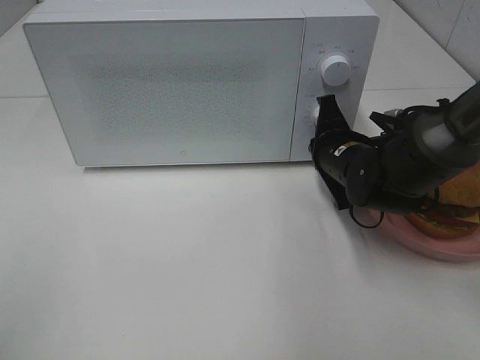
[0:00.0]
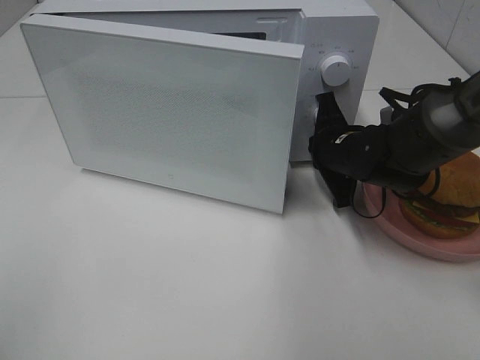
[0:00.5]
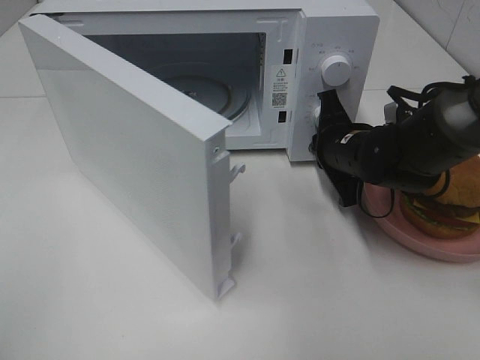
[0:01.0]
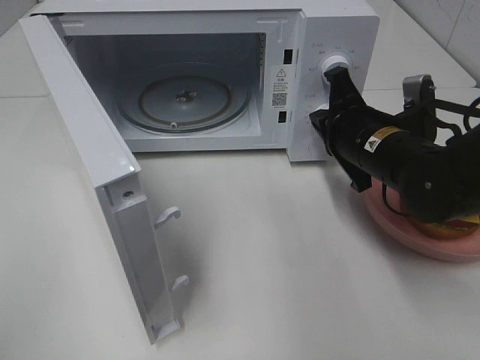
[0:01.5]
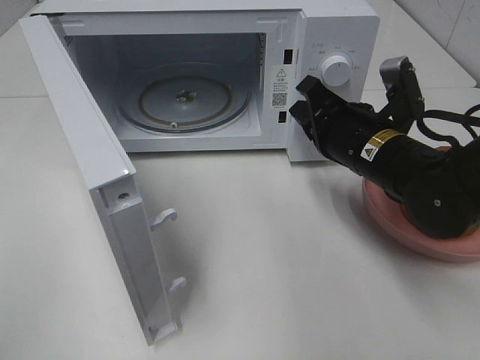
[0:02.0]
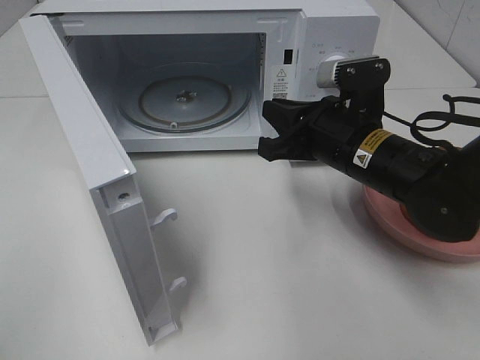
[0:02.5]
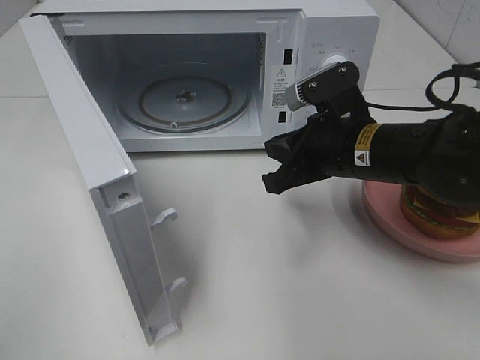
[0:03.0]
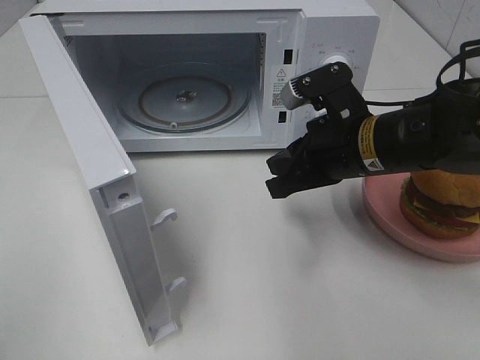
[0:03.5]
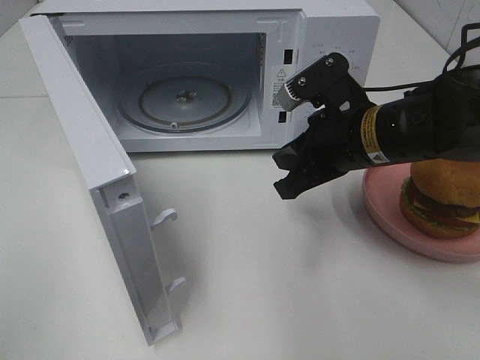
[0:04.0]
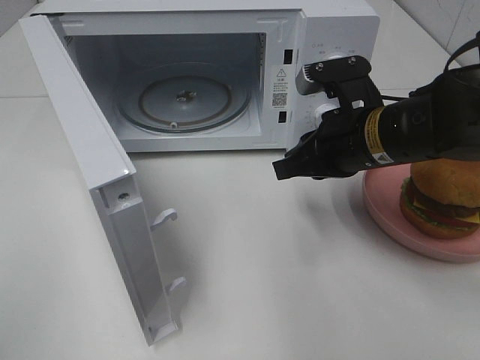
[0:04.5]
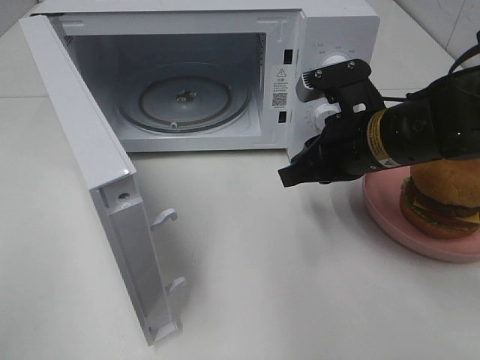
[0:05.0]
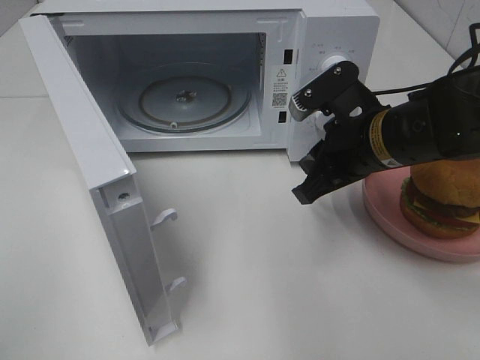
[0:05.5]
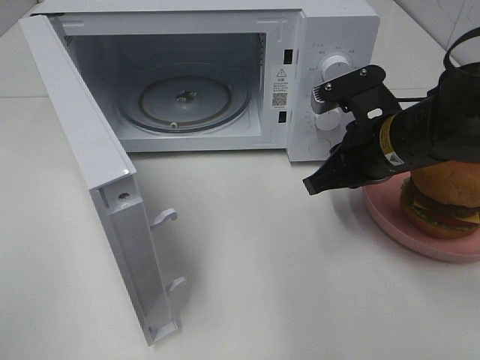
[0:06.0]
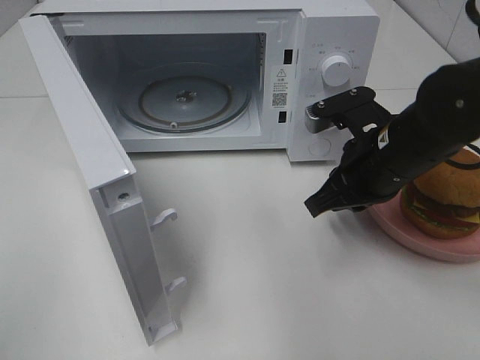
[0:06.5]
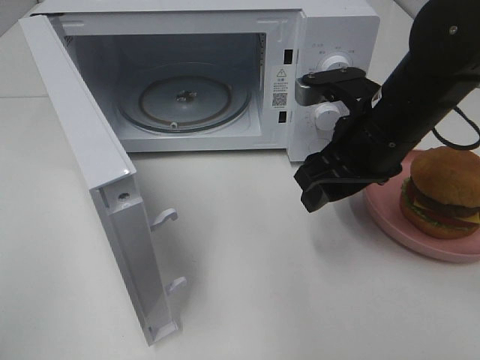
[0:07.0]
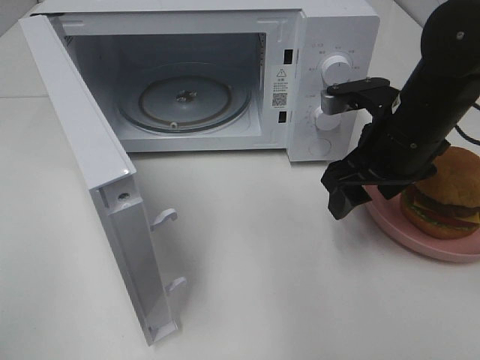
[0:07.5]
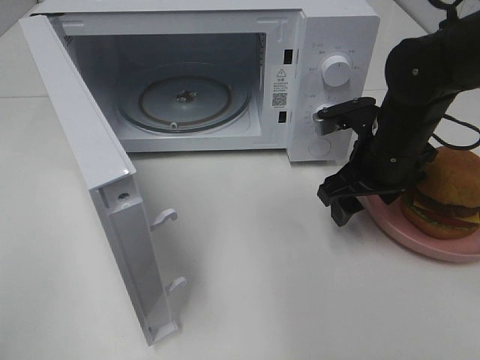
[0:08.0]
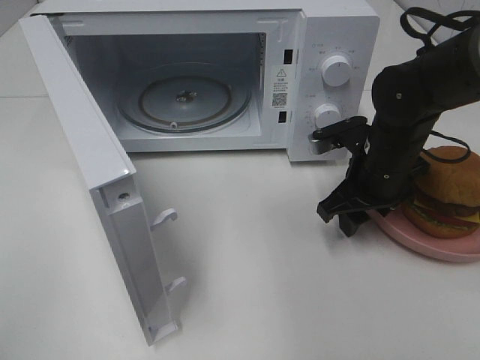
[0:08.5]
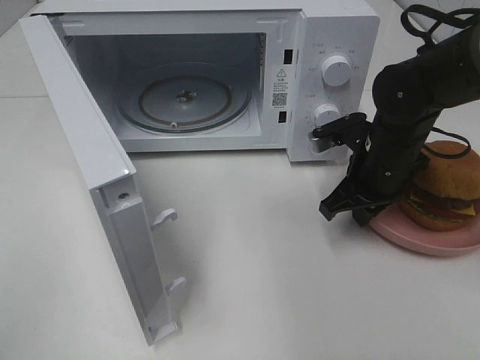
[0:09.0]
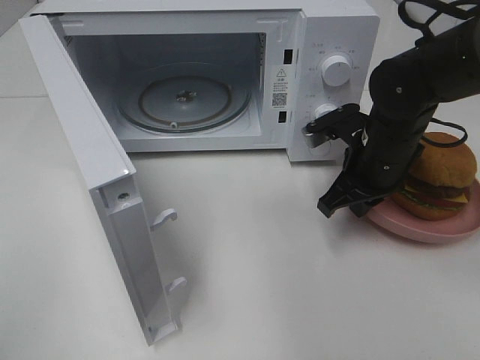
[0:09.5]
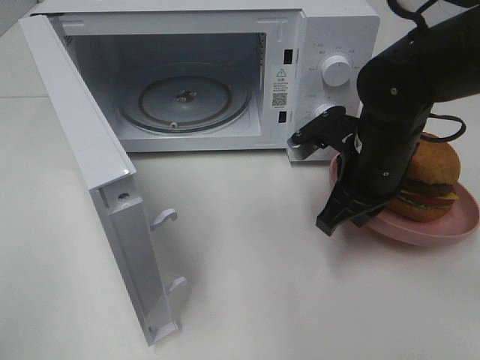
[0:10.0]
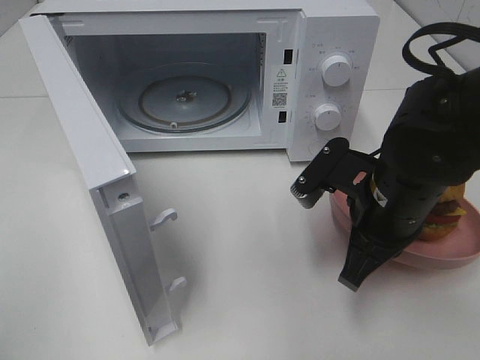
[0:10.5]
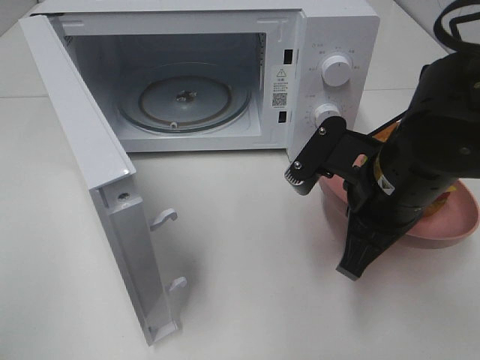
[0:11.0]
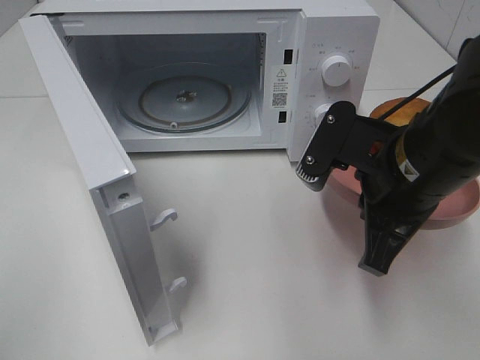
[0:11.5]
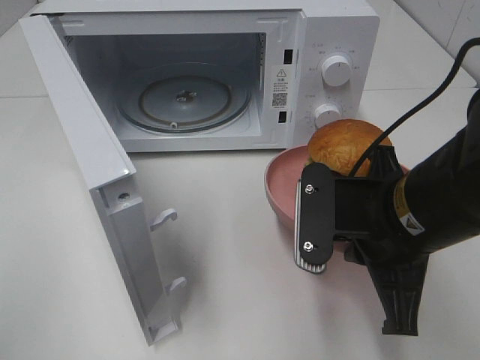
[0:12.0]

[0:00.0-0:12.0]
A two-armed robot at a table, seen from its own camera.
Task of the whole recording: Heat the burger.
Step, 0:01.5 to 0:08.5: Right hand: grab the plate with the hamburger.
0:00.0 to 0:02.0: The right gripper travels upward and backward by roughly 10 cm.
0:06.0 to 0:08.0: The right gripper opens.
0:08.0 to 0:10.0: The right gripper closes its fingers.
0:10.0 to 0:12.0: The right gripper goes approximately 10 cm backward.

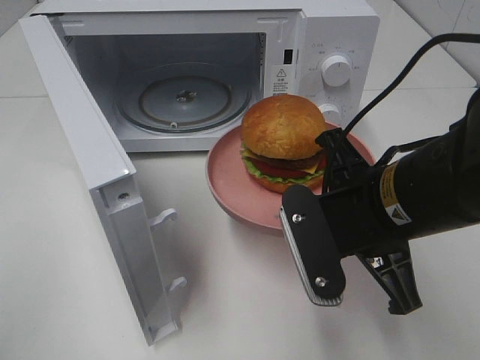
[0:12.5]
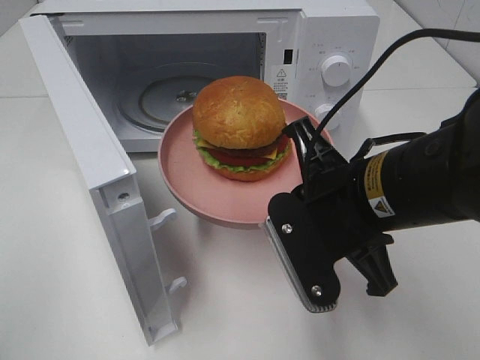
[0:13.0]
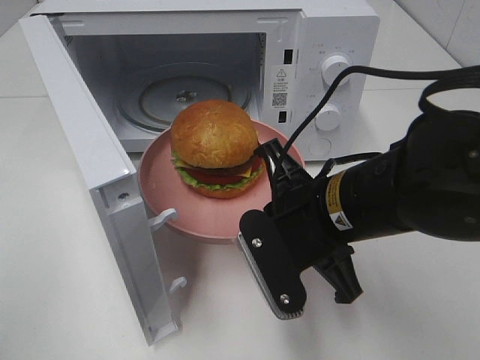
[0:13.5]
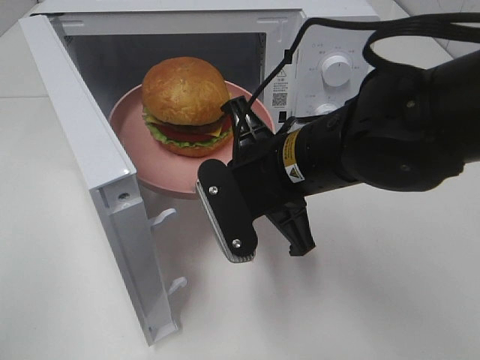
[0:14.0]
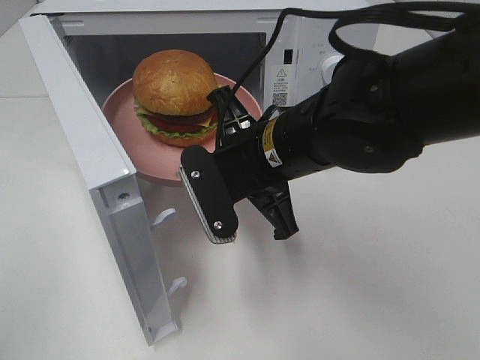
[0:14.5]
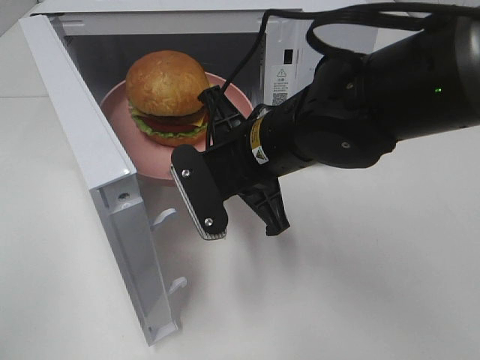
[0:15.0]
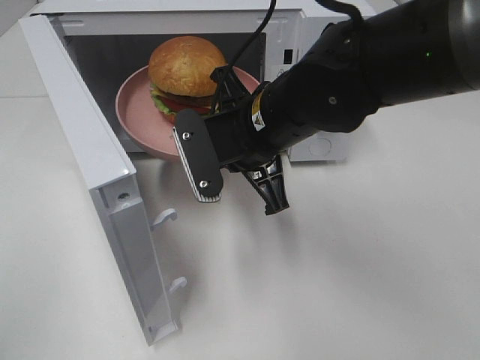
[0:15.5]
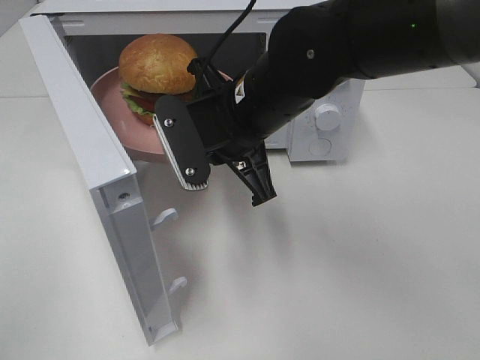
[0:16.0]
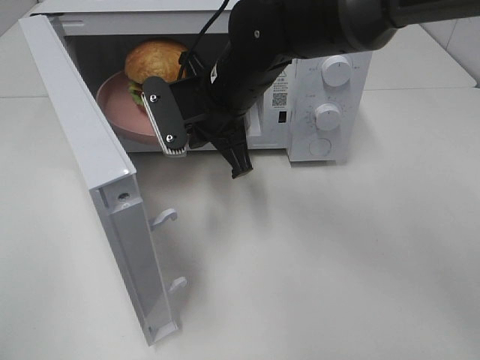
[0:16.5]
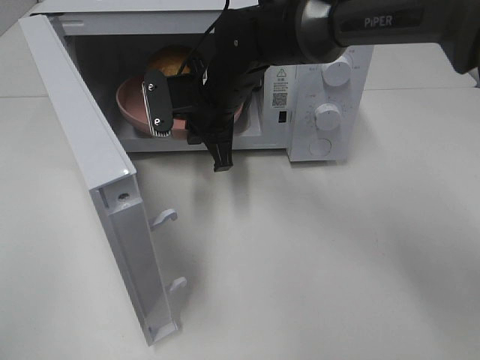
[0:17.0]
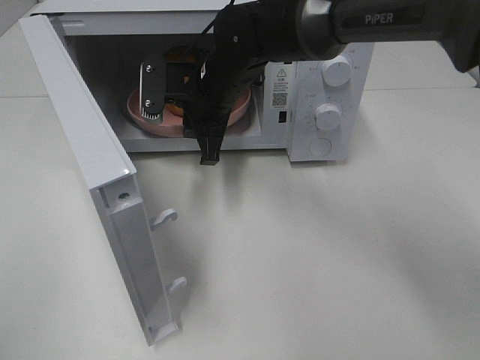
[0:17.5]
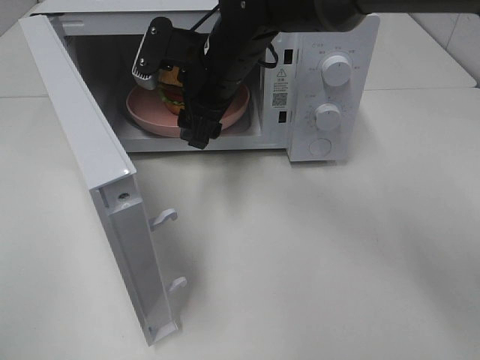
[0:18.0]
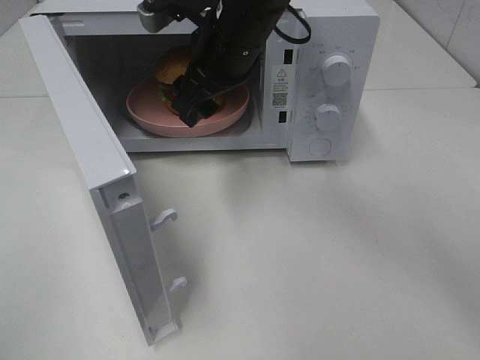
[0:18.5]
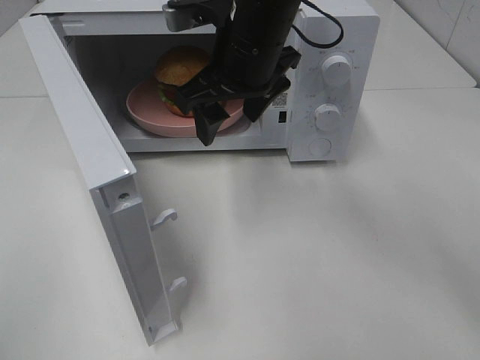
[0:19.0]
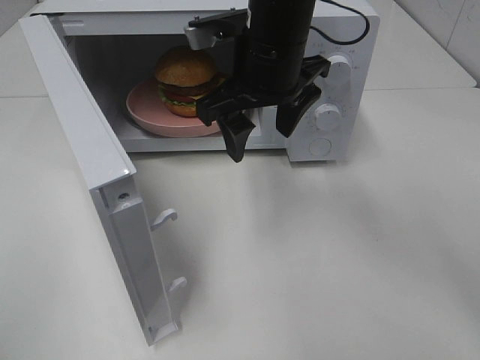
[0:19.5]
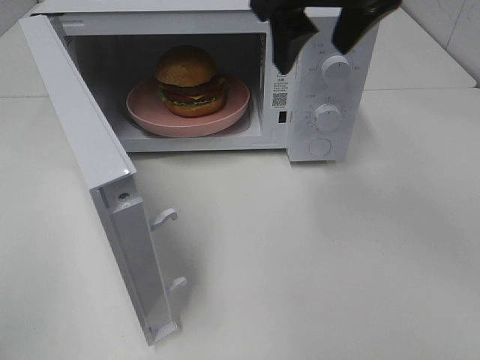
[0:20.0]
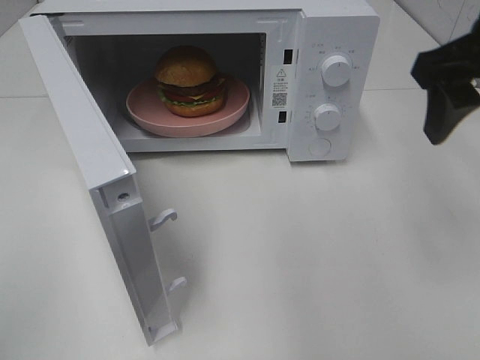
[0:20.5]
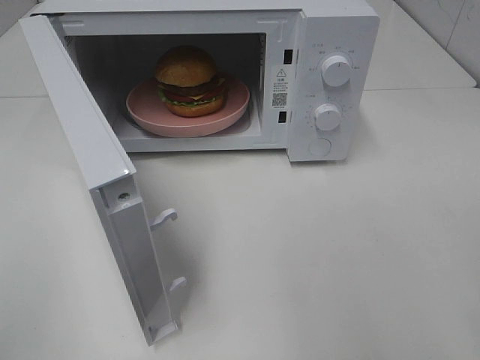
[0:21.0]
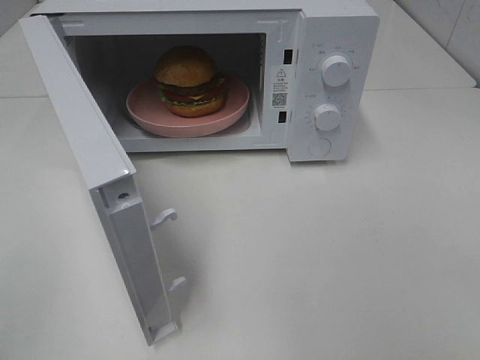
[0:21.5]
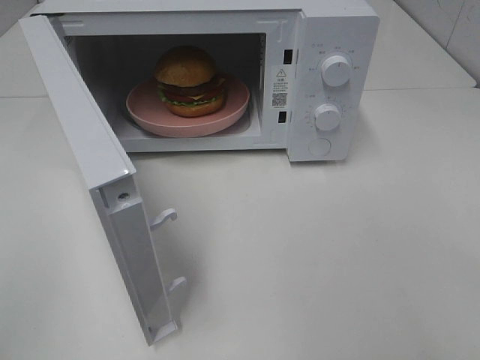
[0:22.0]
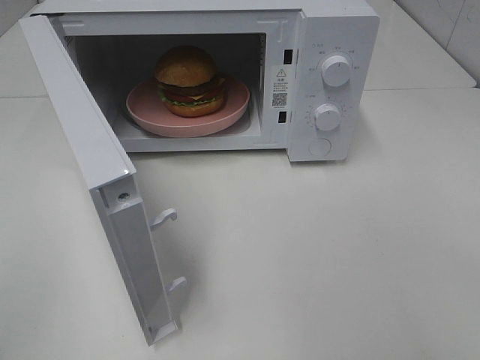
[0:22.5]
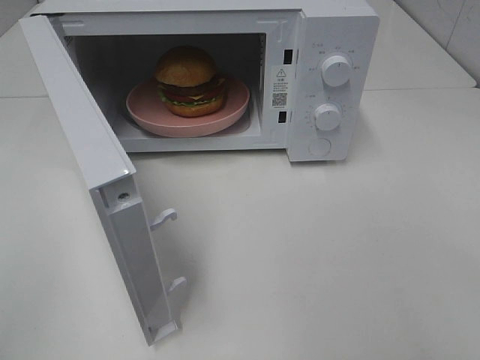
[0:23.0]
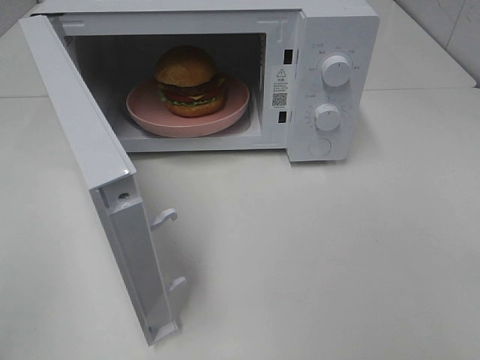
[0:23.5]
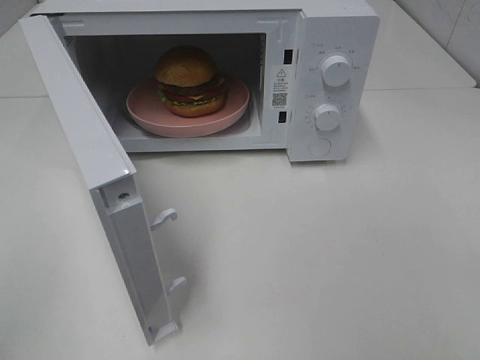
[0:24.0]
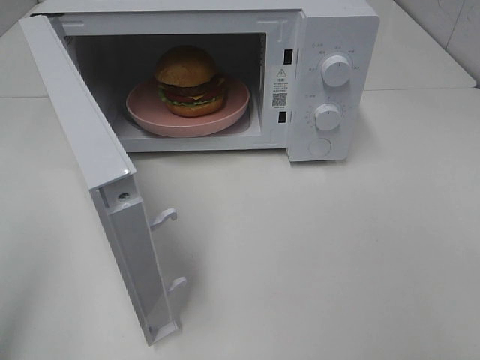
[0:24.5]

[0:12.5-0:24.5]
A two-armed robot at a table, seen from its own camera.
Task of the whole recording: Heat the burger.
Step, 0:12.5 to 0:17.5: Right hand: place the plate in the microwave.
0:12.5 to 0:14.5: The right gripper travels to the left and forward by about 10 cm.
0:14.5 to 0:16.5: The right gripper moves forward, approximately 10 cm.
0:16.5 to 0:18.5: The right gripper is displaced upward by about 5 cm, and opens up.
0:18.5 to 0:20.5: The right gripper heads to the right and backward, covering about 25 cm.
0:20.5 to 0:22.5: The right gripper goes about 25 cm backward.

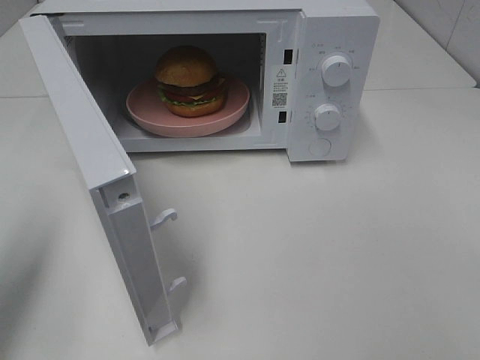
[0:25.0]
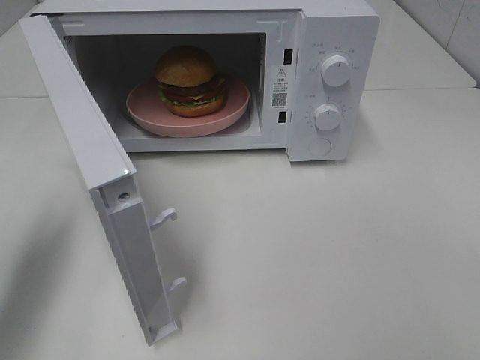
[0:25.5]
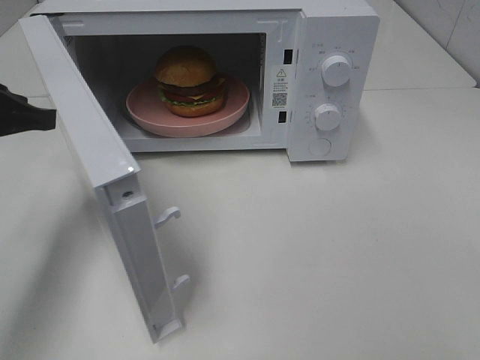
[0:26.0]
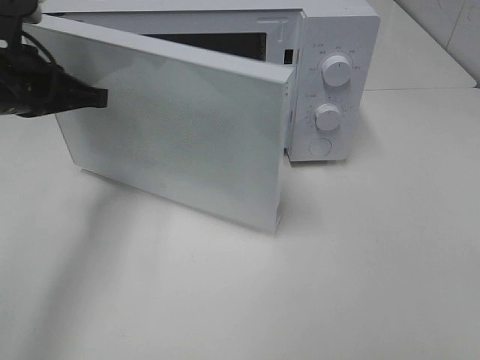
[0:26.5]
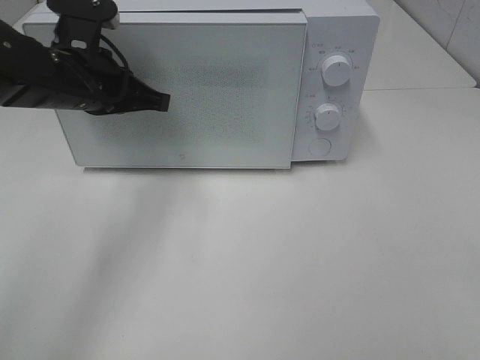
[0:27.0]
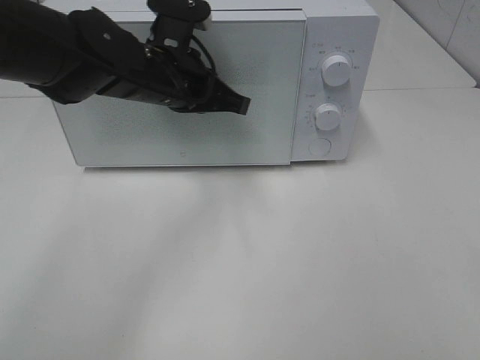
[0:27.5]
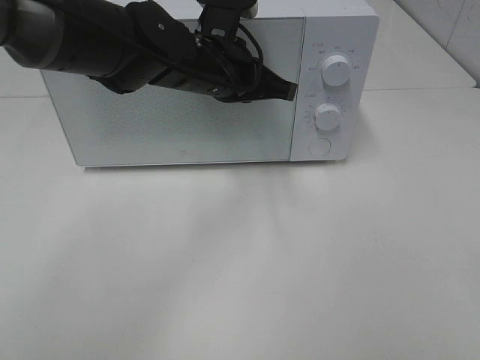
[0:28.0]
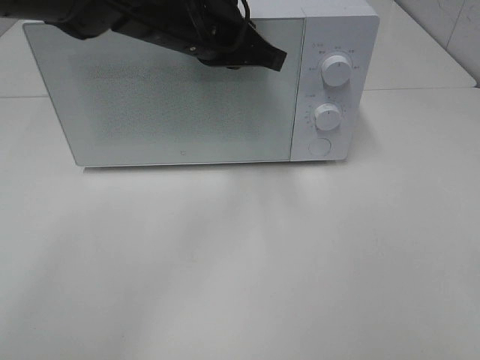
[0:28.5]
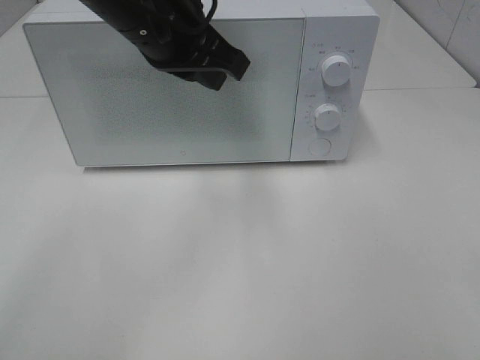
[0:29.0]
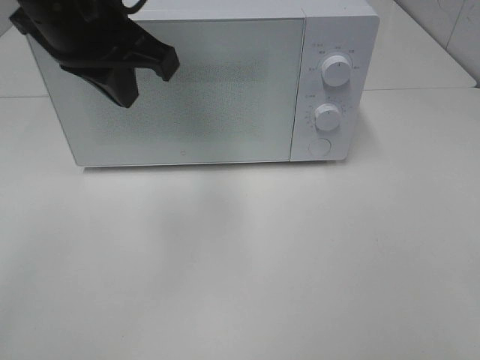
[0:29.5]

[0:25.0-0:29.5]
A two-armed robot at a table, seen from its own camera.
Task of the whole recording: Heat the burger.
Step, 0:25.0 to 0:27.5: Left hand: close the microwave door.
0:25.0 to 0:27.0: The left gripper travels forward, to the right and downward by about 25 cm.
0:27.0 to 0:29.5: The left gripper travels upward and backward by approximately 15 cm, and goes to the right and returns, some 15 cm each way.
